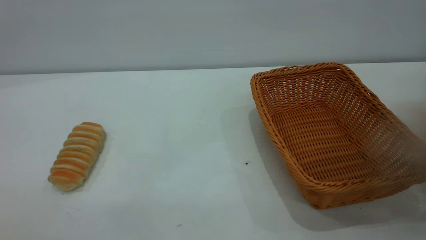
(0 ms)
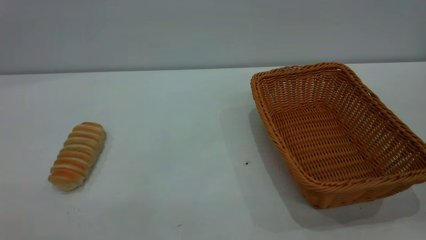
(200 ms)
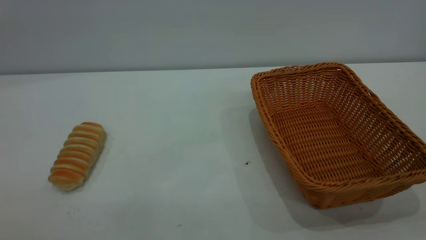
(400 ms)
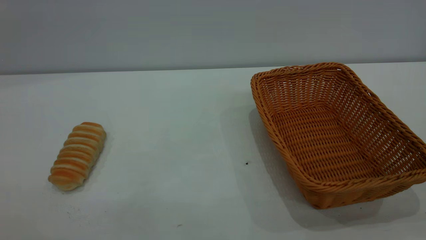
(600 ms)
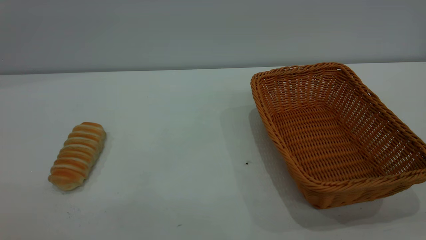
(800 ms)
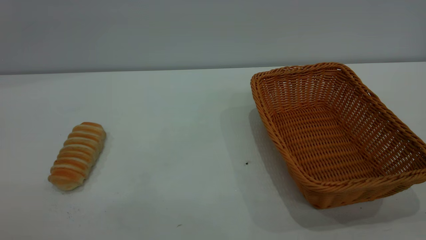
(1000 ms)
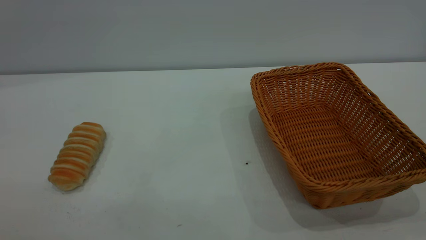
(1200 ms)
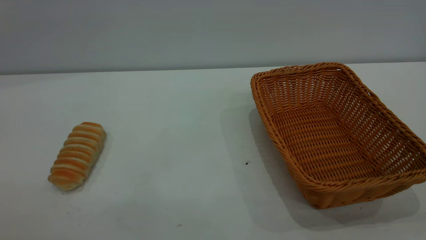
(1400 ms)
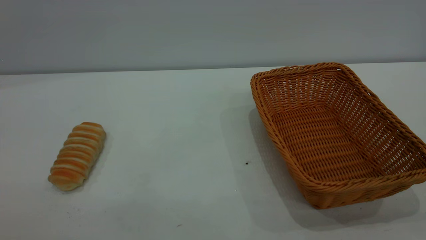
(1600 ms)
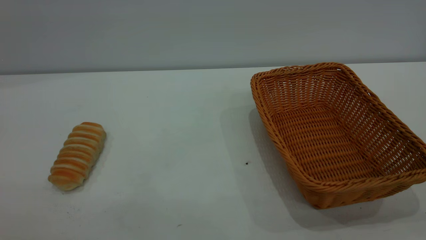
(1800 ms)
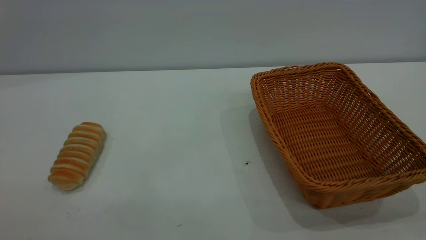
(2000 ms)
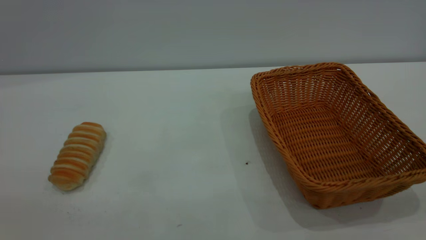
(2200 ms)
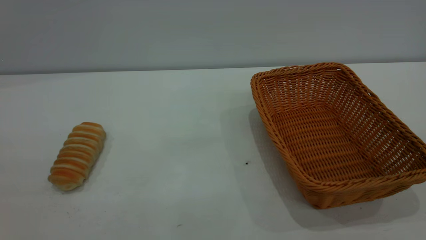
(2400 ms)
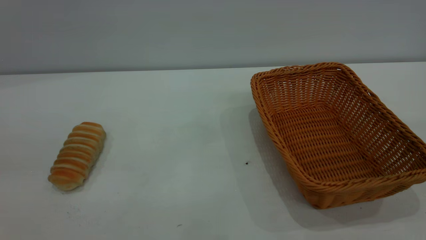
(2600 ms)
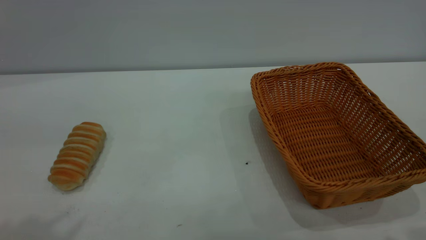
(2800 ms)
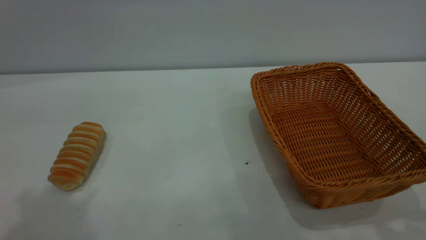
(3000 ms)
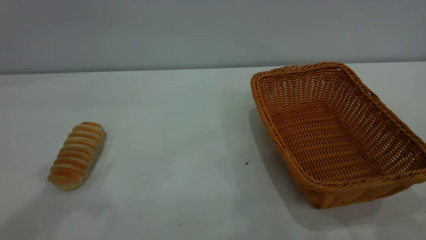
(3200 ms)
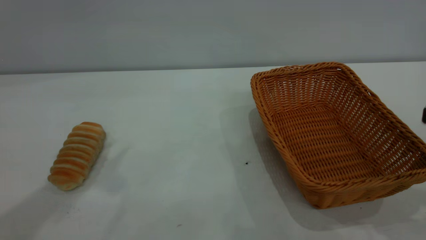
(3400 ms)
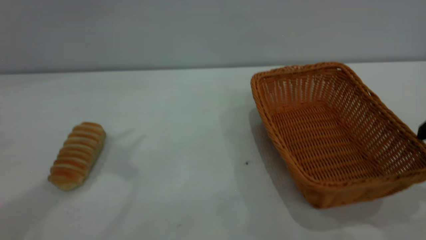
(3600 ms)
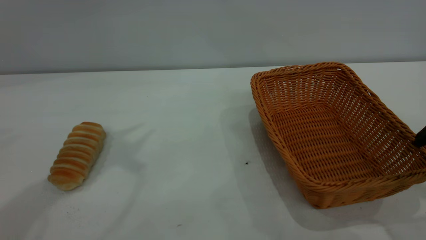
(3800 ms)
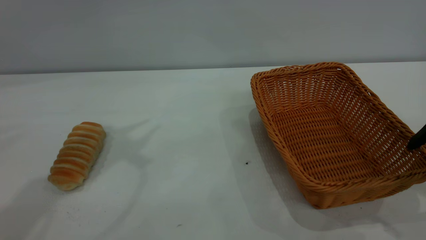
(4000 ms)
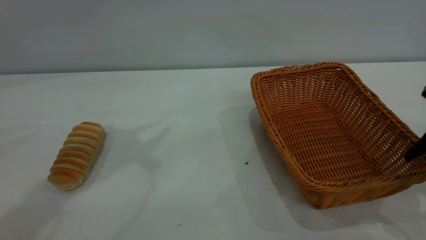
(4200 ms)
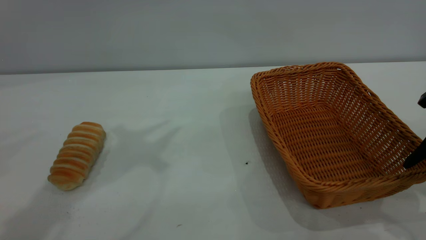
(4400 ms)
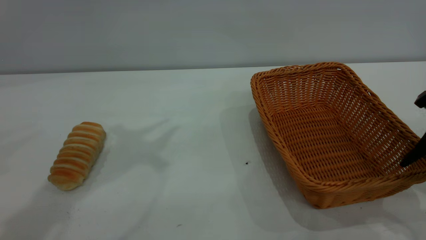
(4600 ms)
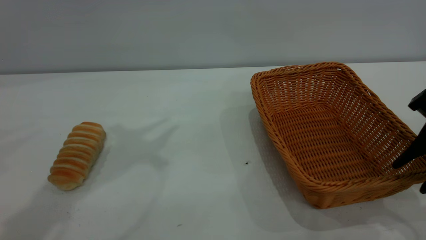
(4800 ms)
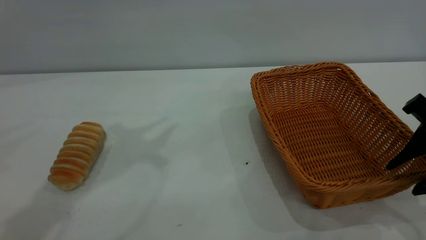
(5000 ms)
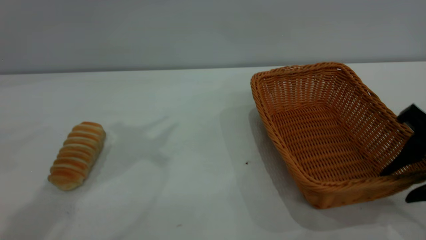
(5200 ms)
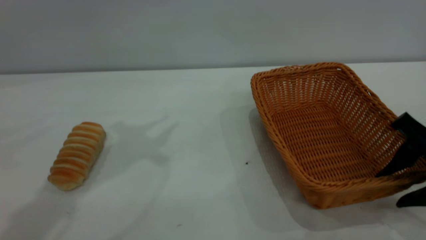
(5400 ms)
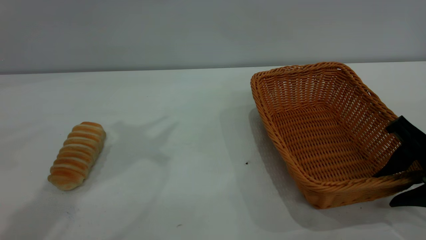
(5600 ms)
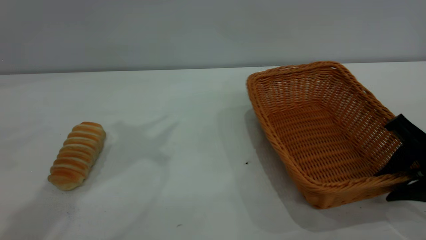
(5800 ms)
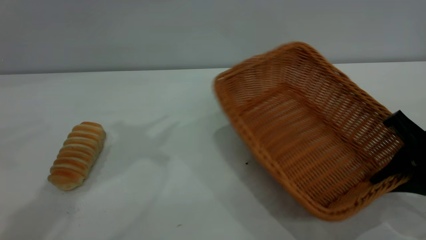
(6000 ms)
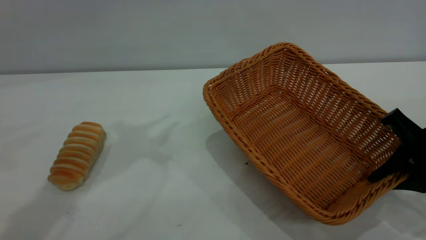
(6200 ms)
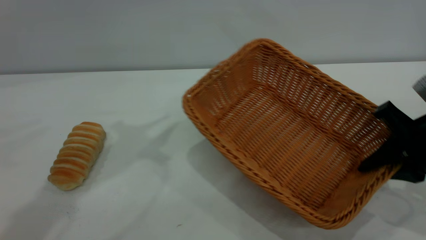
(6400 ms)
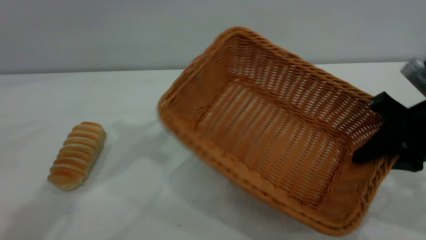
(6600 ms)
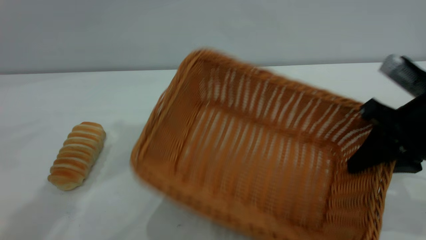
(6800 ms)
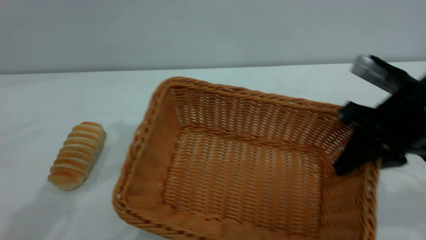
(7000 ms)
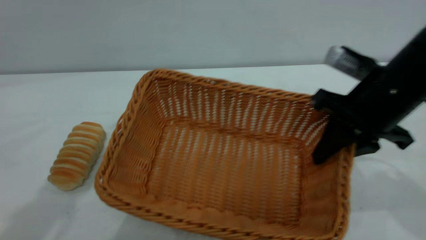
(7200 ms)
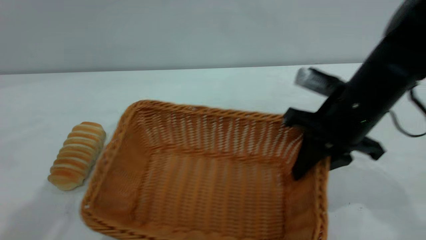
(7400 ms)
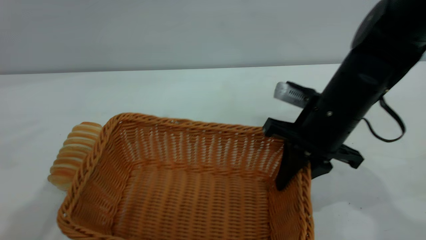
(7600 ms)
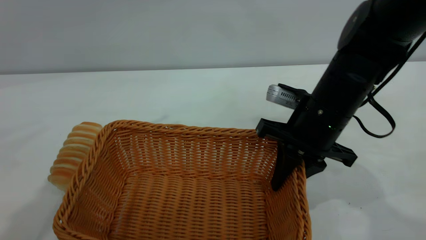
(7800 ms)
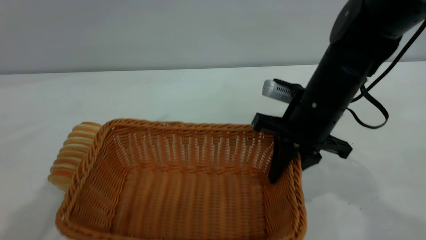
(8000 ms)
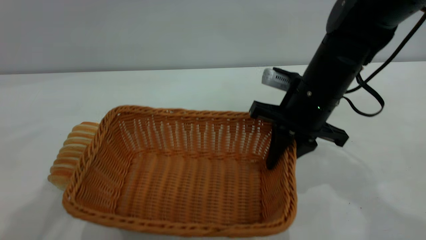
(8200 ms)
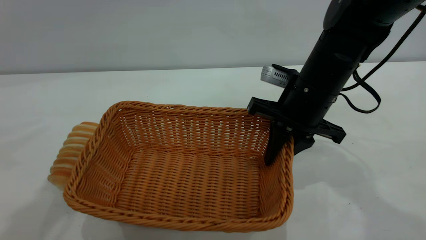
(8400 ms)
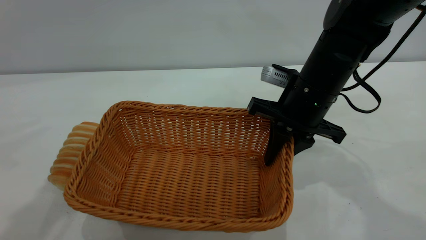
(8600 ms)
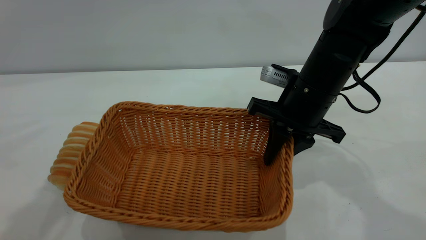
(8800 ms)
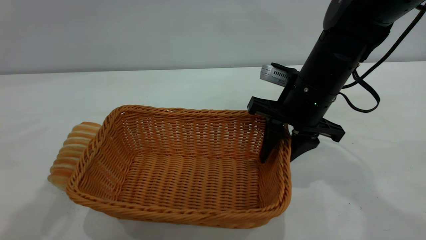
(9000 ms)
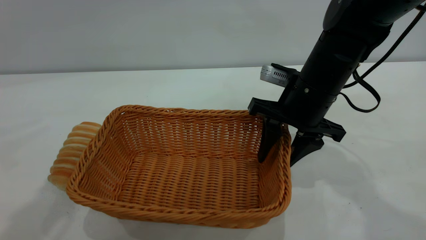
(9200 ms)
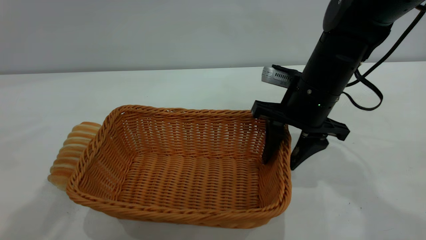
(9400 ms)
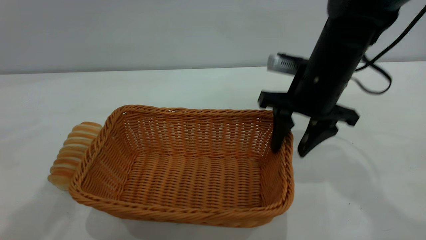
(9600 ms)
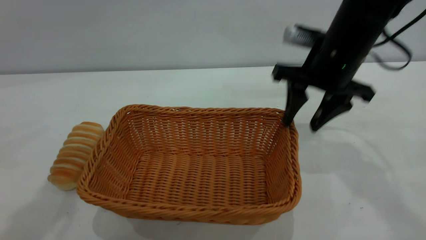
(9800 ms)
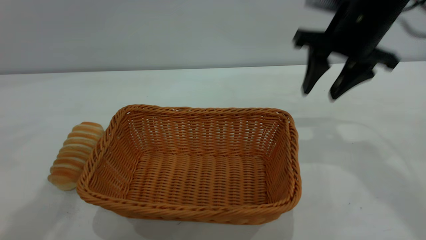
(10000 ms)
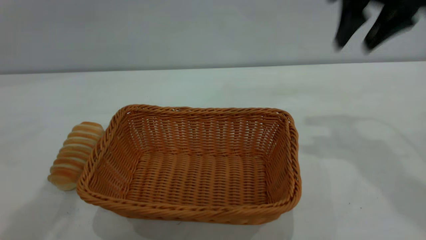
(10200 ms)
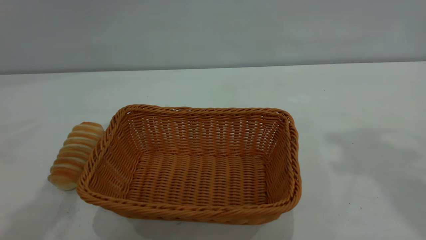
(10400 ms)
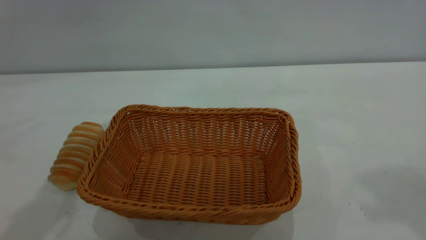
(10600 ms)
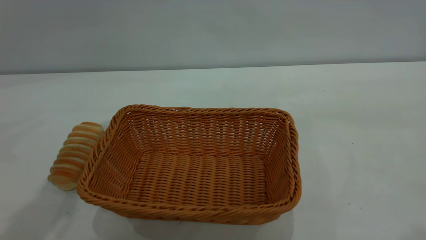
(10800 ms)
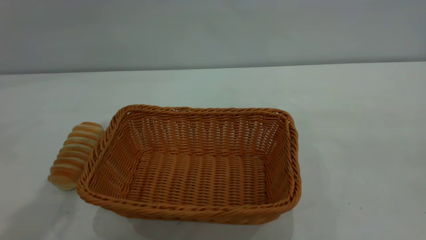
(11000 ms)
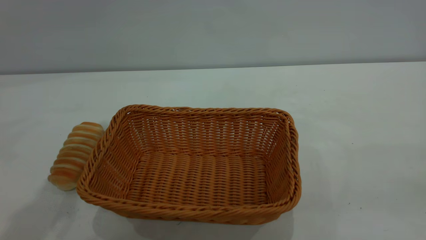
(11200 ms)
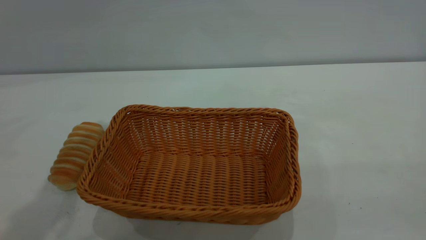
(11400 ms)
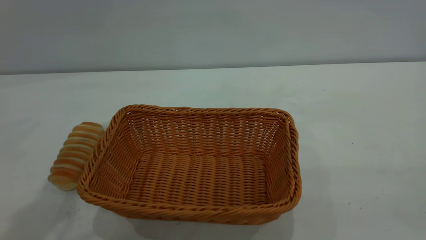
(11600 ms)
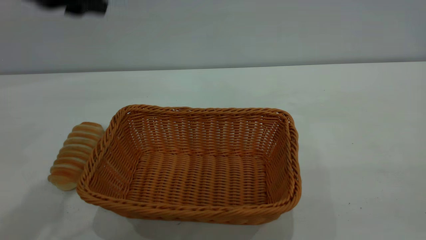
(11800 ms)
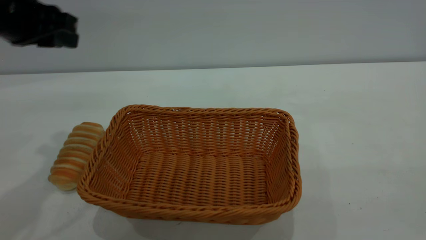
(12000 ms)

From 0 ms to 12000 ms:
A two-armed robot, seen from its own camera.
Task of the whole recording: One hand grasps the yellow basket and places it in the middle of the table, while the other hand picks up the long bread and puts it into the yellow basket.
Step, from 0 ms to 9800 ms: Move the basket to the center of view.
From 4400 ms to 6000 ms: The right gripper moves downward, some 5 cm, and closes up.
From 6000 ms to 7600 ms: The right gripper moves to the left and forward, some 15 cm.
From 7600 ms to 9000 ms: The right gripper opens up.
From 9000 ms to 10400 ms: The right gripper is displaced upward and to the right by some 30 cm.
From 10400 ms to 12000 ms: The left gripper goes roughly 15 cm downward and to the left.

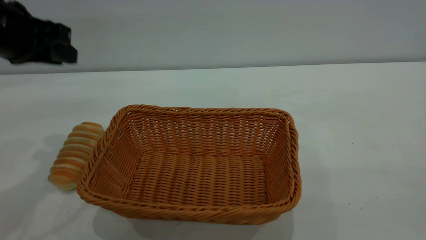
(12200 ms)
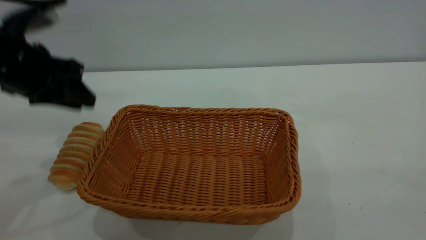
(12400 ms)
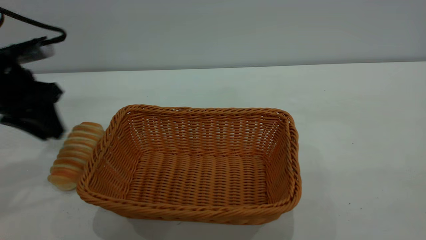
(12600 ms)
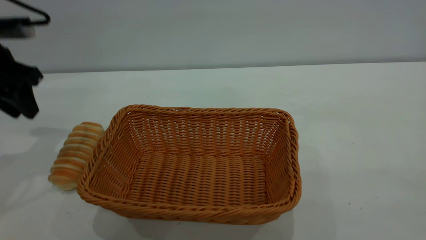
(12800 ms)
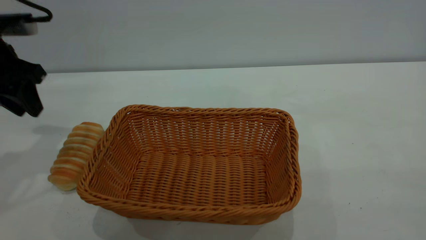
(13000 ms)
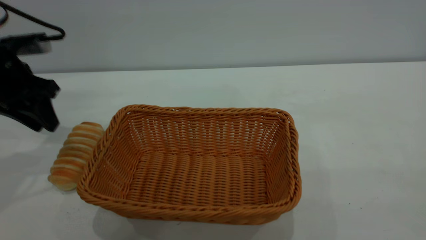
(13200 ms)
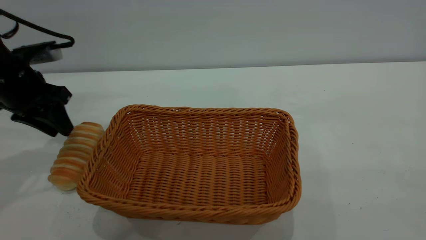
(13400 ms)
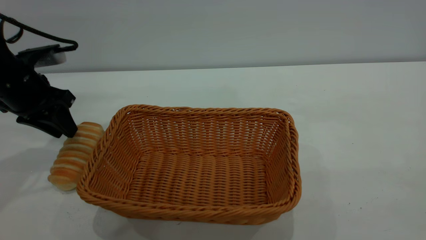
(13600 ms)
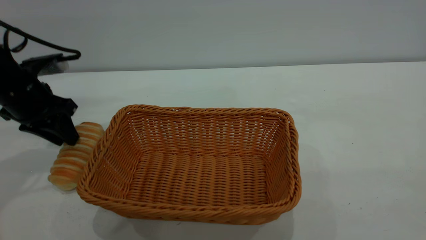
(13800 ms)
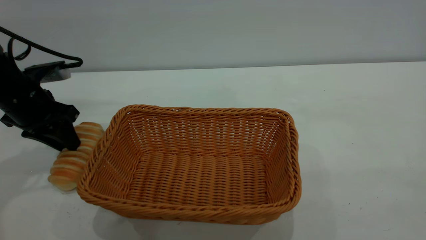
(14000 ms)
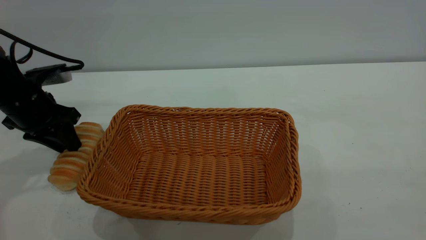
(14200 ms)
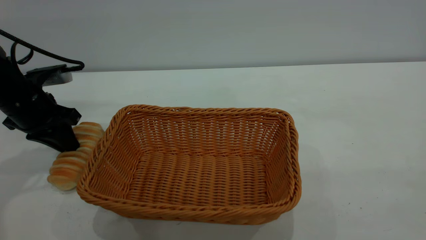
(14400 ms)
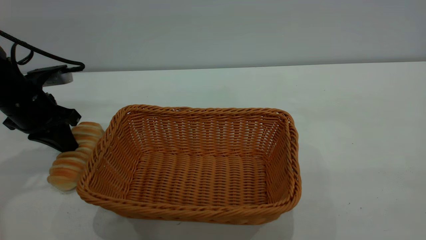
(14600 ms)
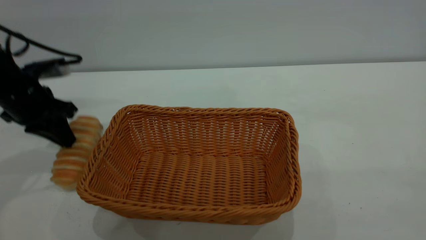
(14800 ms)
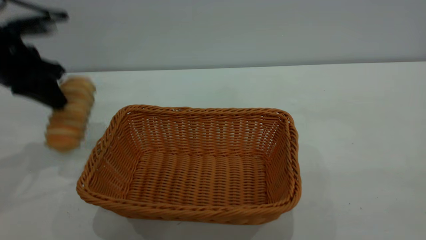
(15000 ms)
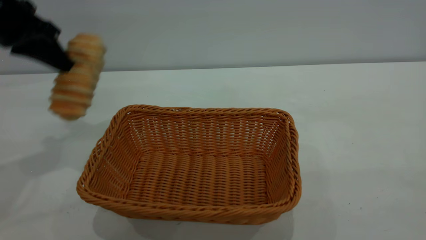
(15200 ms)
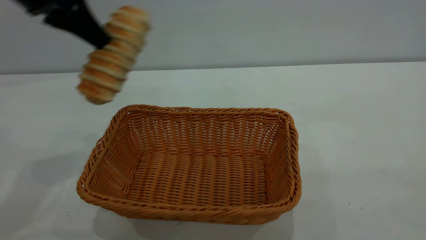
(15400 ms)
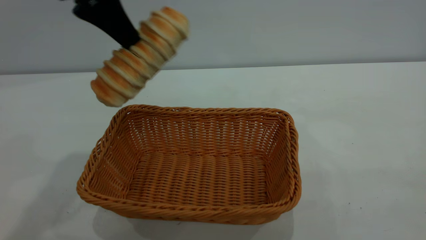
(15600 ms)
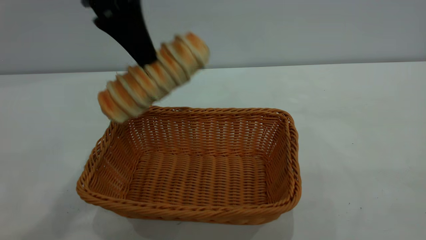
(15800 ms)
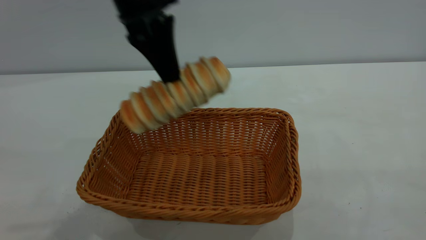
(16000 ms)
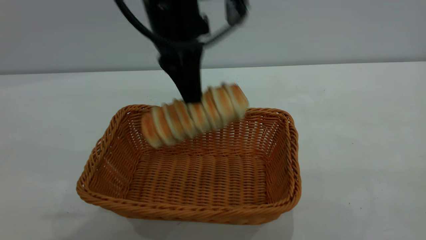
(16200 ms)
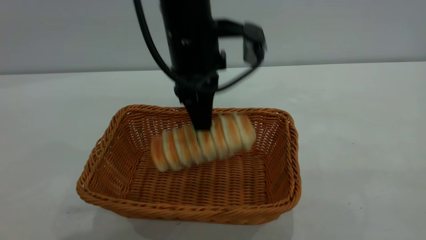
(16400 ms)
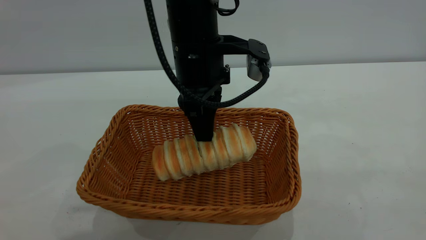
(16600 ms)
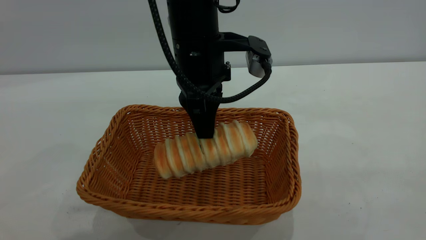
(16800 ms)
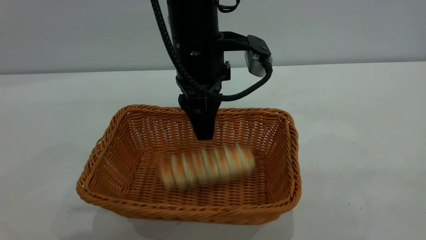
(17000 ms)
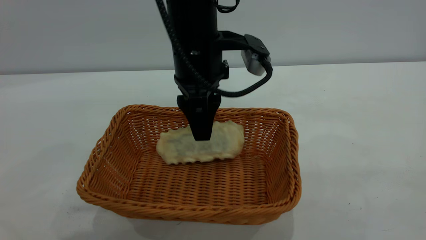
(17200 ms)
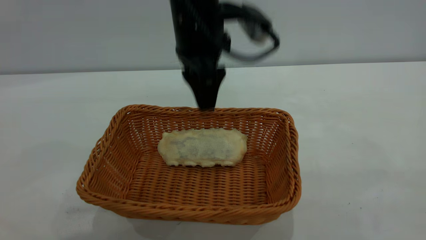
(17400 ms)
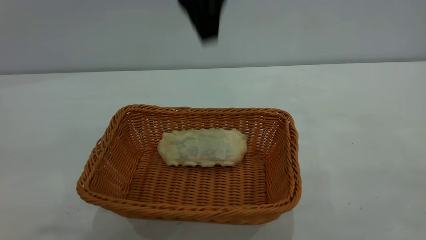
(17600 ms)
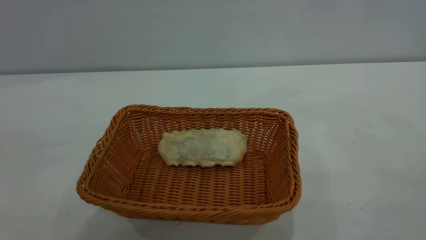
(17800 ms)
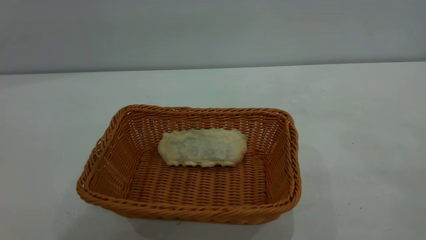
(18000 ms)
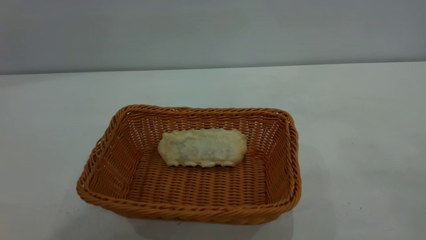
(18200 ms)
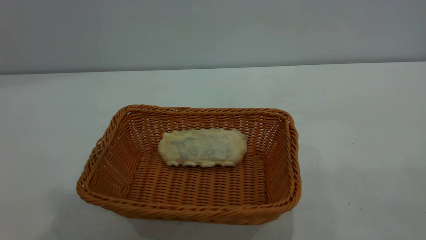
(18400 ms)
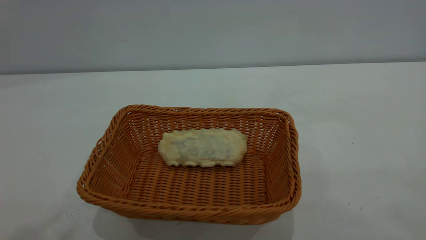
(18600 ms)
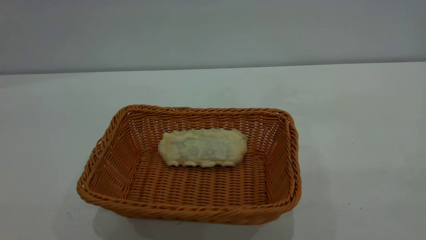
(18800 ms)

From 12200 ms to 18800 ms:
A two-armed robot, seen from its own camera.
Task of the whole recording: One hand grasps the yellow basket and places it in the middle of the table, while the other hand picks up the long bread and puts it into the yellow basket.
Step, from 15200 ms to 17400 ms: place the bread into the basket.
From 12200 ms to 13800 ms: The left gripper goes some 10 cm downward and forward.
From 13800 ms to 15400 ms: The left gripper is displaced upward and to the right by about 20 cm, and closes.
From 15400 ms to 17200 ms: The left gripper is displaced to the right and downward by approximately 20 cm, and opens up.
From 17200 ms to 18800 ms: The left gripper travels upward, backward and to the left by some 50 cm.
